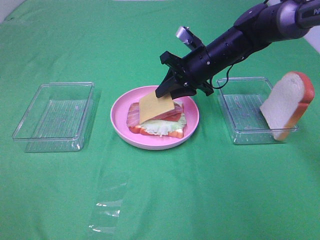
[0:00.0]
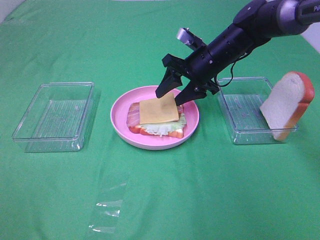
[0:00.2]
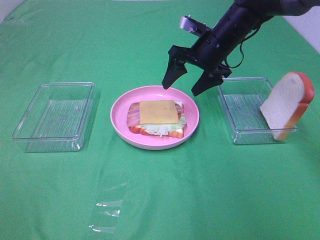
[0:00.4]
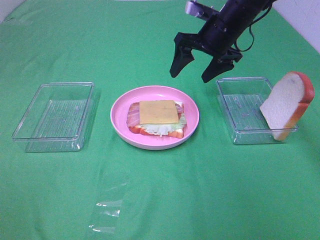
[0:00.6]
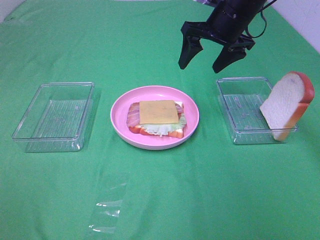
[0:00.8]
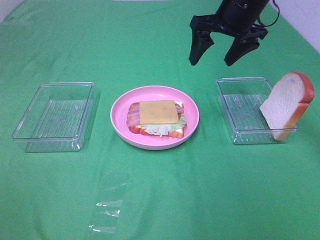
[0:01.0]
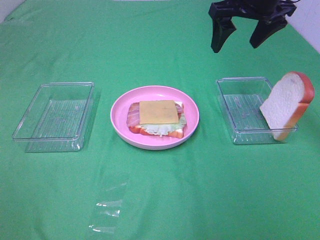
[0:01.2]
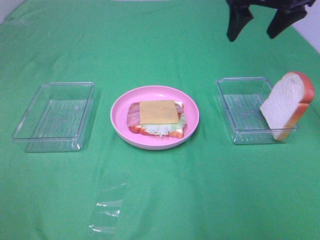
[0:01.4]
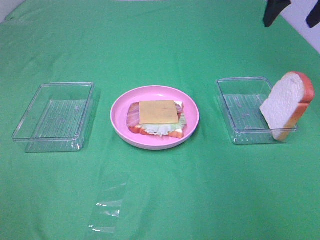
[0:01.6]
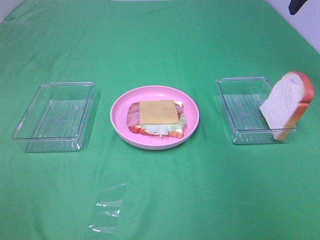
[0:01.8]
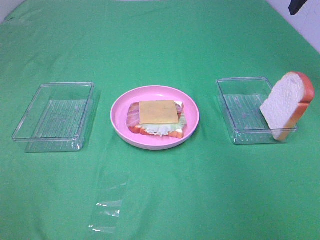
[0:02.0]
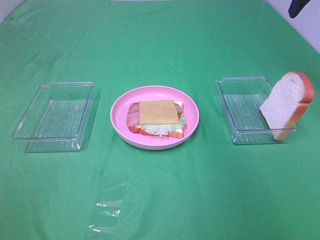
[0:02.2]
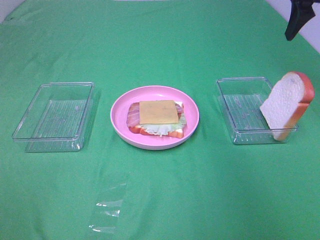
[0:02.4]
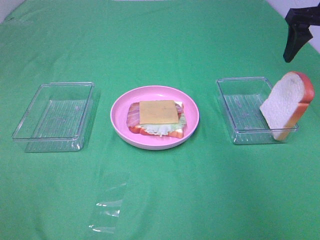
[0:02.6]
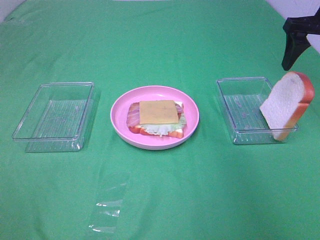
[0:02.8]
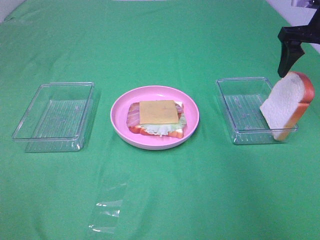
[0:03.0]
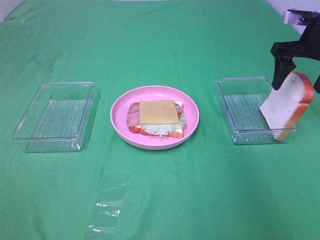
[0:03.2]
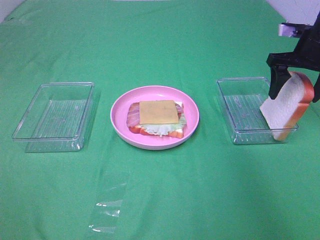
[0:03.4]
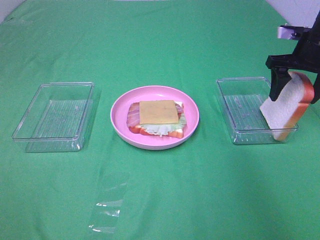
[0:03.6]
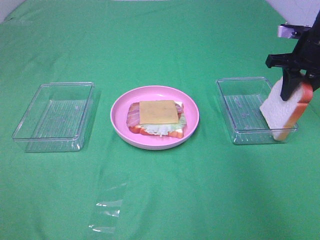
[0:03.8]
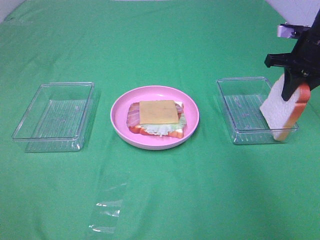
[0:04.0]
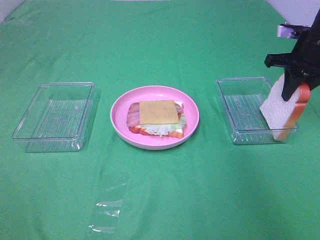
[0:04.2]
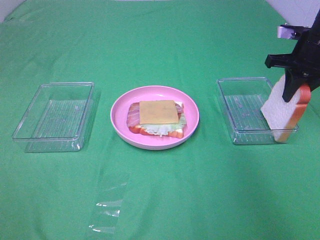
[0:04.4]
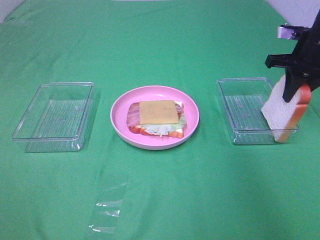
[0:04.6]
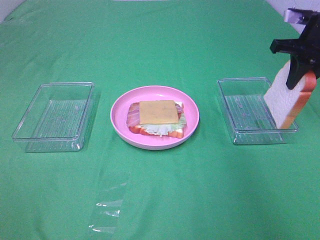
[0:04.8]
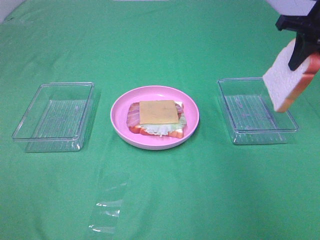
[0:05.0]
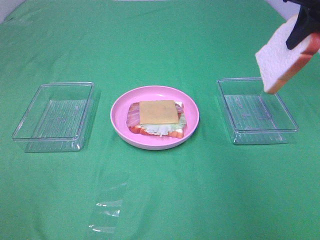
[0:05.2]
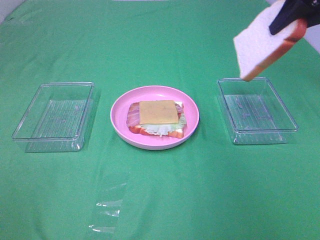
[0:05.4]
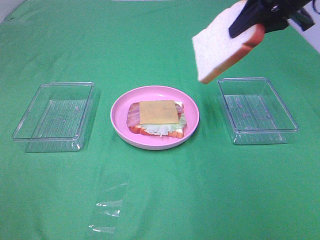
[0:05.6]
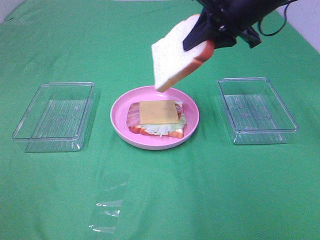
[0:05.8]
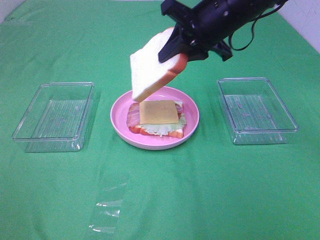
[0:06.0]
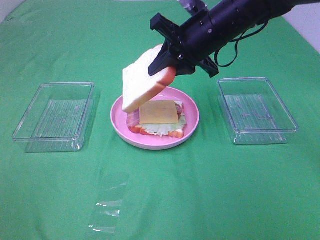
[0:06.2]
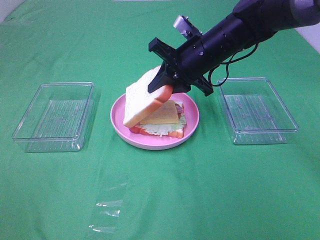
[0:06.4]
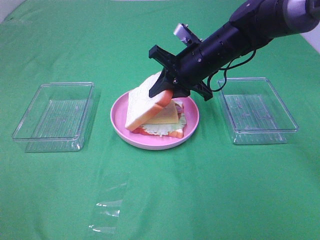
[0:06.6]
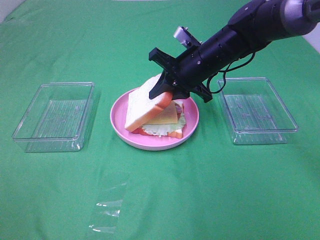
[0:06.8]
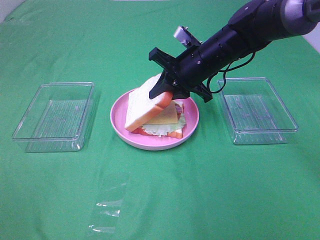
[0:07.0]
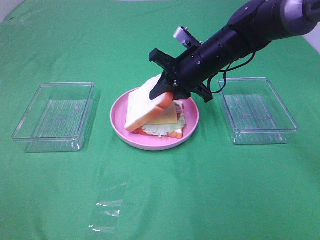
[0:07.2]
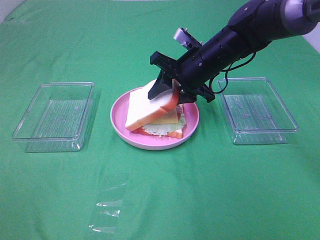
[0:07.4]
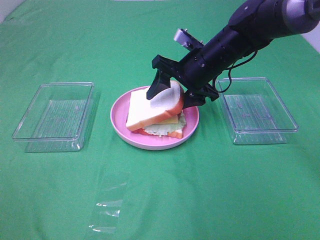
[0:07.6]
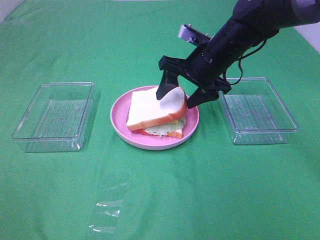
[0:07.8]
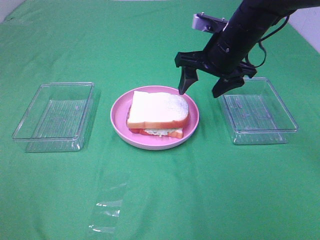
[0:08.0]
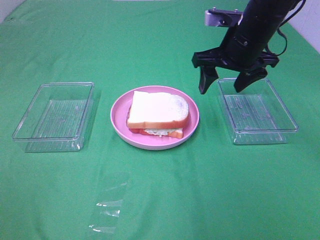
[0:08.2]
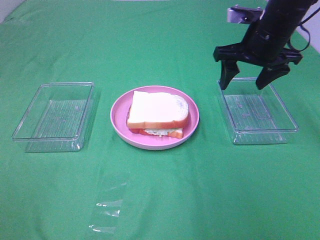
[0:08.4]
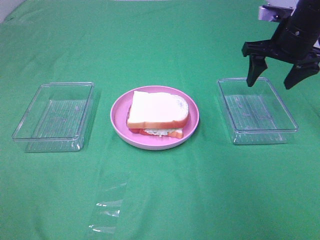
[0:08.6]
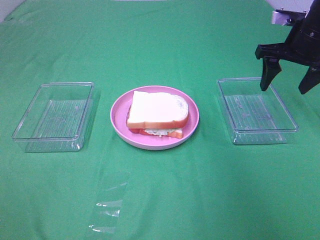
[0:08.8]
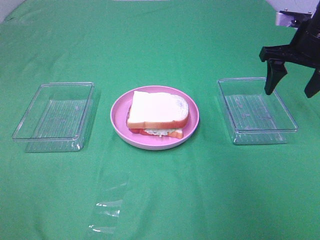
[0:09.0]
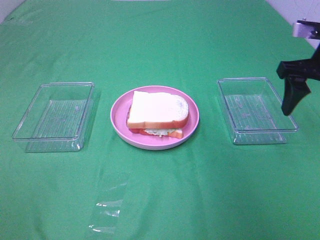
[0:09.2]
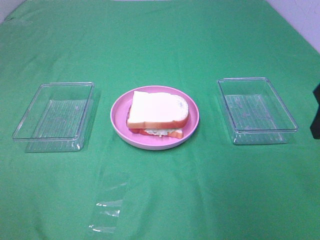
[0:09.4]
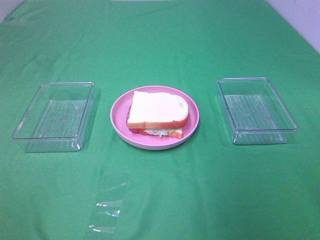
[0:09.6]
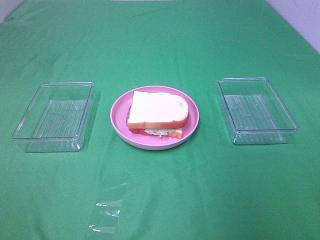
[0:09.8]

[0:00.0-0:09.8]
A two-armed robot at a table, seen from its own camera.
Task of the whole recording: Make sandwiches.
Step, 0:00.4 to 0:04.4: Right hand:grab the bread slice.
Step, 0:04.6 to 0:07.8: Right hand:place the bread slice on the cheese slice.
0:00.0 to 0:01.4: The right gripper travels upward and to the right by some 20 cm, and opens.
0:01.4 to 0:02.8: The right gripper moves to the right, about 10 cm.
0:02.8 to 0:04.2: The right gripper travels downward by some 10 cm, and closes its fingers.
0:04.2 to 0:05.6: The right gripper is displaced upward and to the left by some 15 cm.
0:05.6 to 0:07.0: The right gripper travels downward and to the left by some 20 cm.
0:07.0 to 0:08.4: The right gripper moves to the right and upward, about 10 cm, and opens up.
0:08.4 to 0:09.8: The right gripper goes some 30 cm backward.

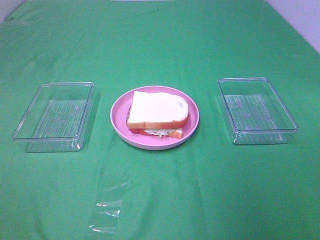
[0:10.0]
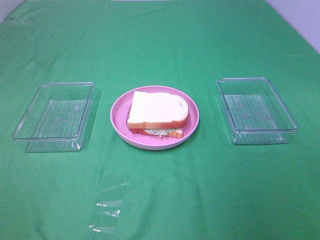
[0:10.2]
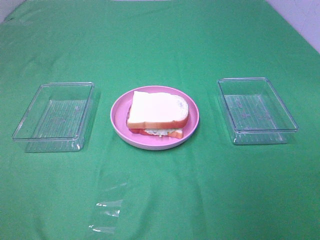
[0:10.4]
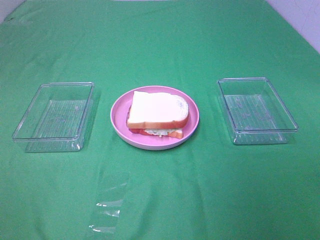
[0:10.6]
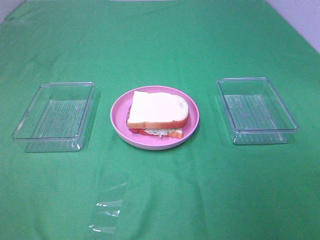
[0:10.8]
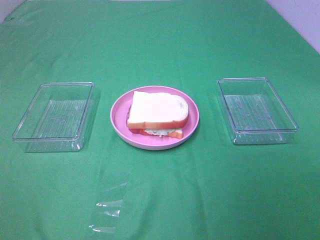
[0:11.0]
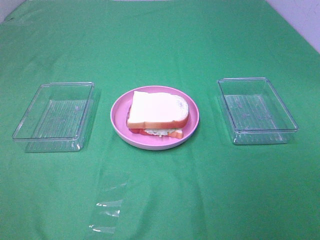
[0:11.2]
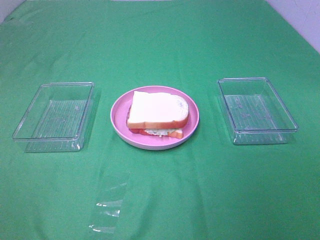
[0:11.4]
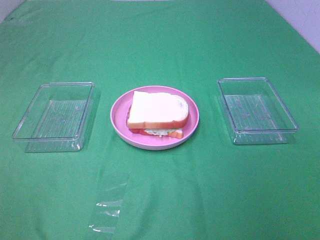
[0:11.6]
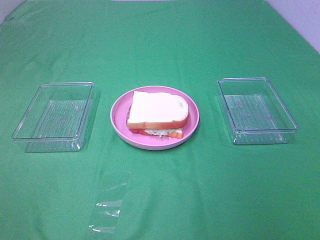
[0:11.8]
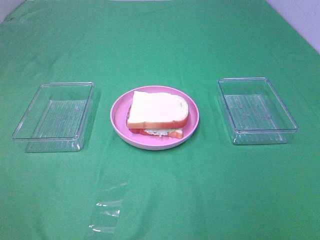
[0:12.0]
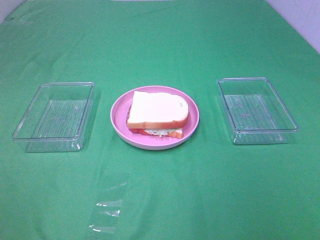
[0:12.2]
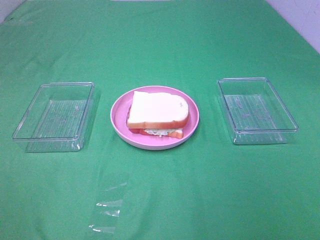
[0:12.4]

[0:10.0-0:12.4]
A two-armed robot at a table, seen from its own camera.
Task of the whole recording: Make sandwiches.
0:11.2 to 0:12.4: The two grippers keep their place.

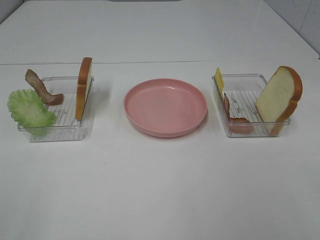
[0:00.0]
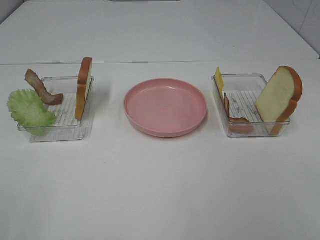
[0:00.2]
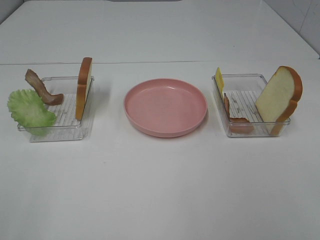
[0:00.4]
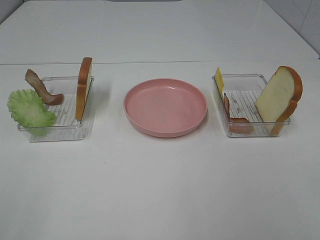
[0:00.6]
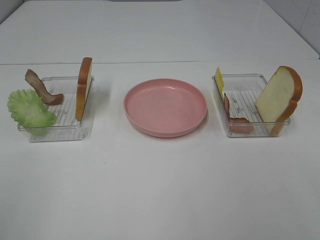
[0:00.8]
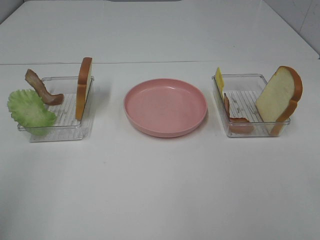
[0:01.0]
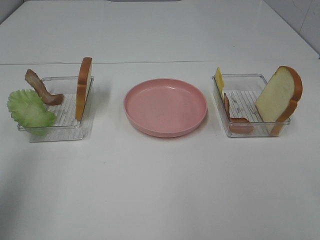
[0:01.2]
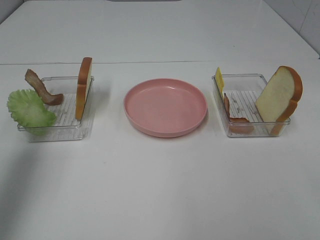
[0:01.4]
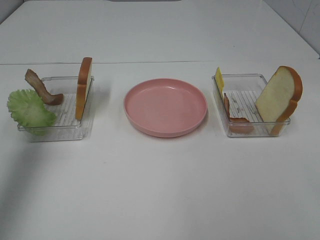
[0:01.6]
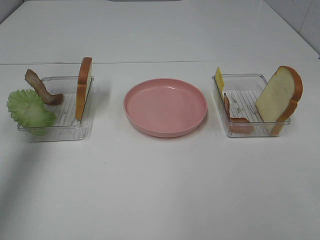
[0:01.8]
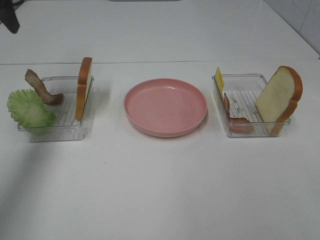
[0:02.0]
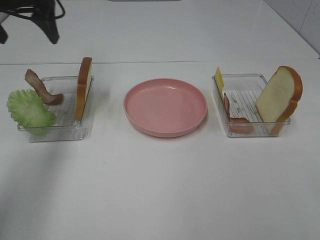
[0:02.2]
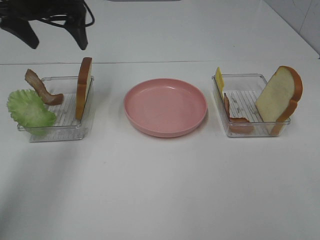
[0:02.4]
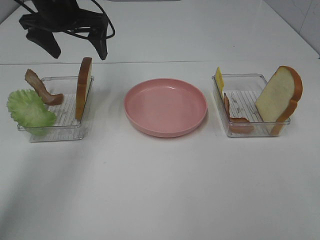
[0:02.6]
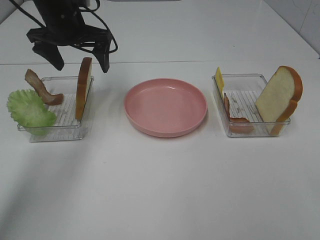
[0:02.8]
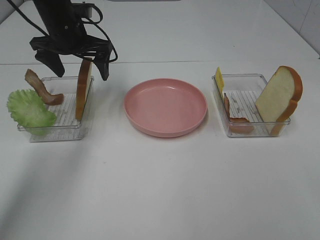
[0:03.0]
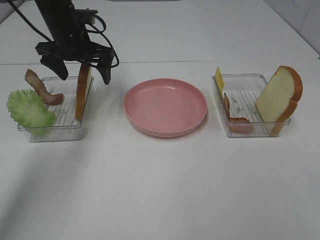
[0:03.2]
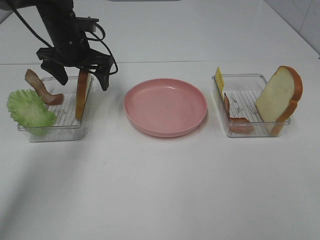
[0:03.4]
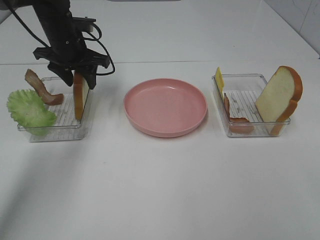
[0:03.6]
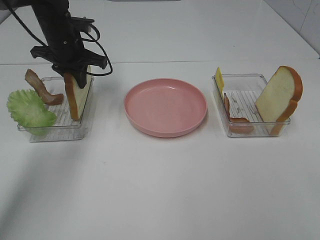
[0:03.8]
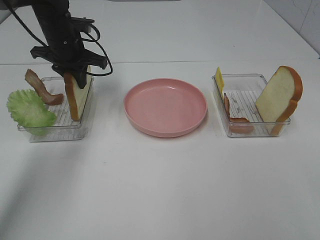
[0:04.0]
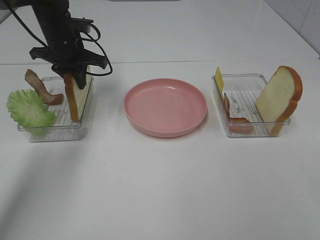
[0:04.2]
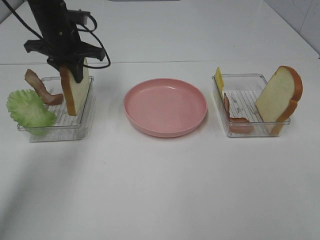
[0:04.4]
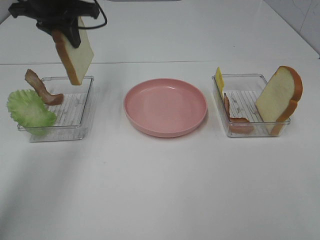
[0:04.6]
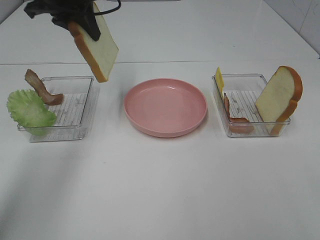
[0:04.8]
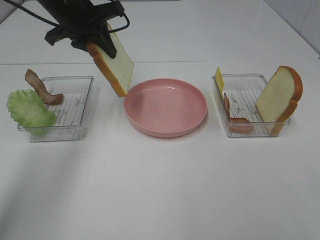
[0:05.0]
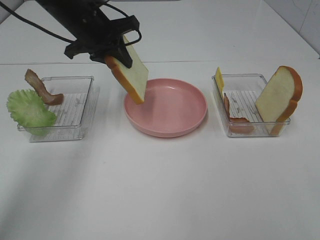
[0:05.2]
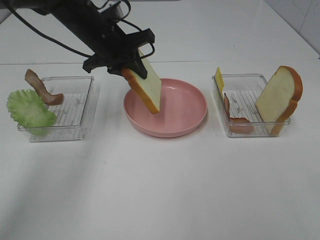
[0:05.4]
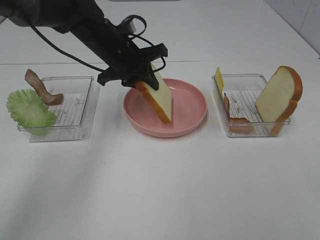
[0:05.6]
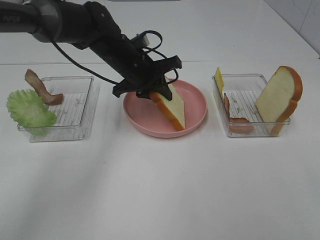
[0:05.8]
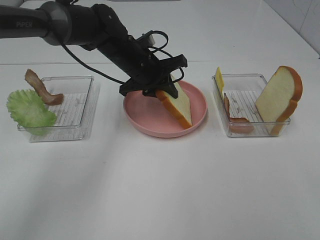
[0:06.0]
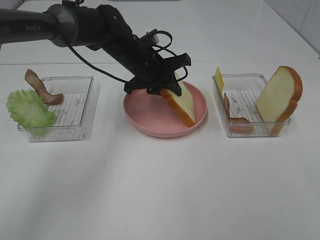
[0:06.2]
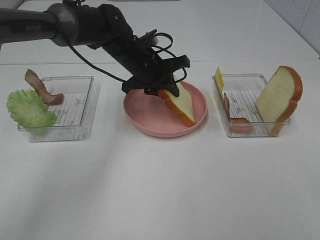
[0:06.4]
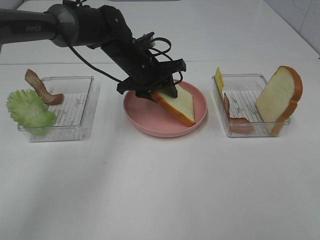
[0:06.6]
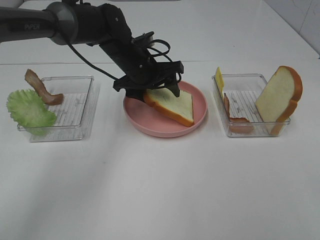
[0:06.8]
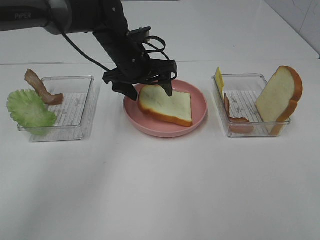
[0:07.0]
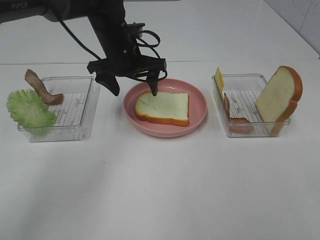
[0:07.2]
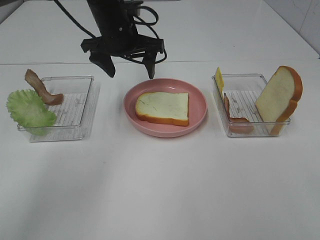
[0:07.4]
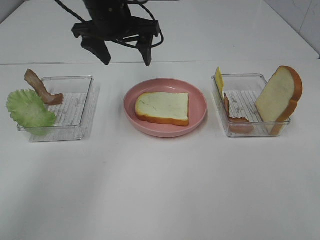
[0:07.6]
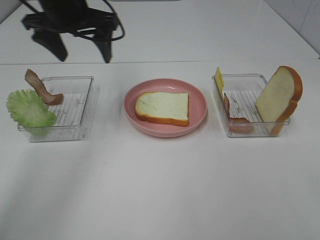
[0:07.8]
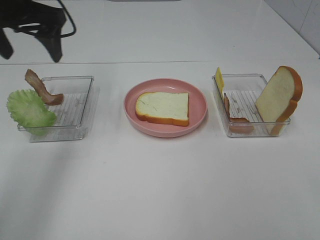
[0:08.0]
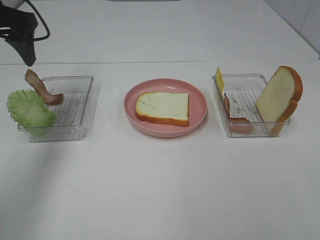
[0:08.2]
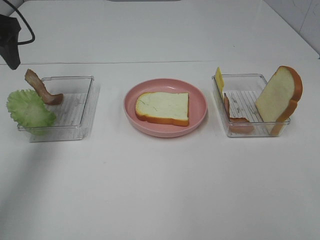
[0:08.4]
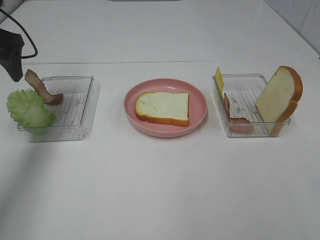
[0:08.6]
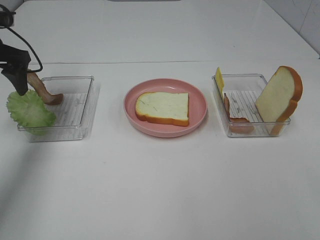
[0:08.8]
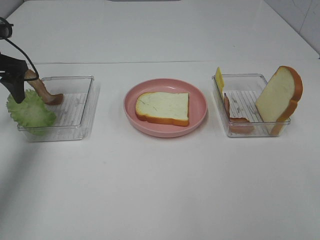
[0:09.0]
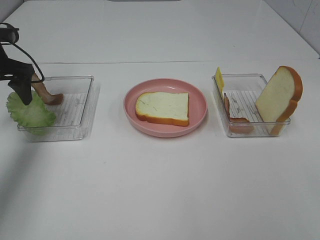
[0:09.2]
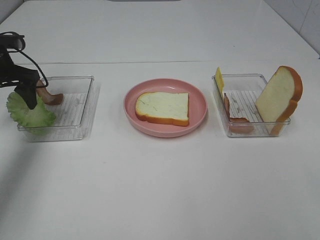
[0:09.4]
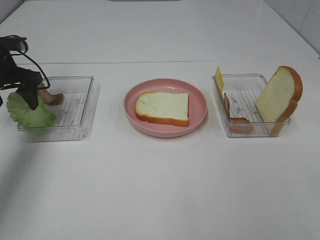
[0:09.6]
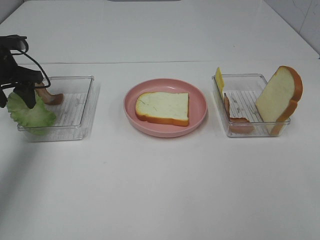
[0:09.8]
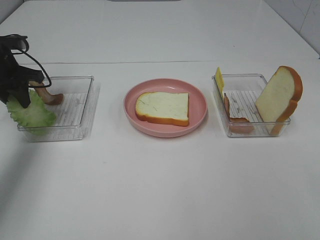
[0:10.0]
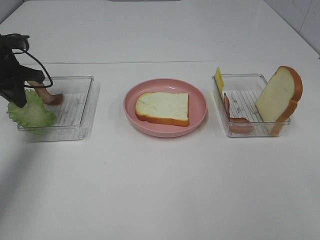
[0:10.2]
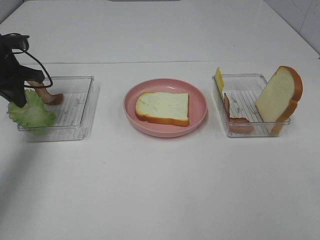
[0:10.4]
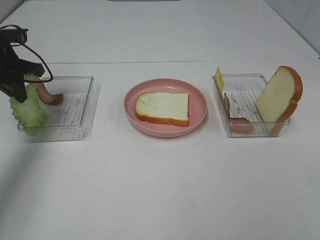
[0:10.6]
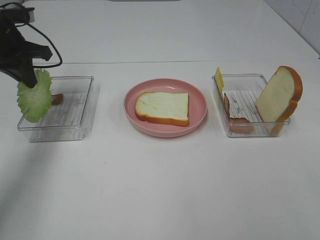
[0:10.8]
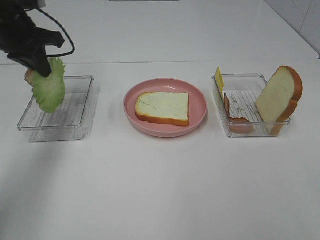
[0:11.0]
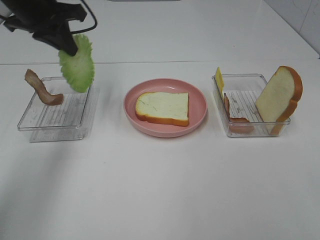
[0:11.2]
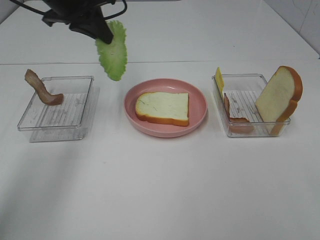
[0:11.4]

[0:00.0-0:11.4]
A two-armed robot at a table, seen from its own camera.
Task of the whole recording: Make sandwiches.
Step, 0:00.0 to 0:04.0: Left hand:grab the bread slice.
Step, 0:04.2 to 0:07.2: Left hand:place the bread slice on the plate.
Step, 0:07.4 to 0:10.6: Left hand:grab the lettuce slice.
0:00.0 to 0:01.4: The left gripper heads forward, covering roughly 25 cm.
0:01.4 to 0:02.8: The left gripper shifts some 30 cm forward, to the right and downward.
0:02.8 to 0:04.2: The left gripper is displaced downward by roughly 5 cm, and closes its fingers.
0:04.2 to 0:05.6: The left gripper is displaced to the right by roughly 10 cm, and reaches some 10 cm upward, then returns.
0:05.6 to 0:07.2: The left gripper opens.
0:07.2 to 0:08.6: The left gripper heads to the left, covering approximately 25 cm.
0:08.6 to 0:10.0: The left gripper travels downward by approximately 10 cm, and closes its fingers.
0:10.0 to 0:11.4: The left gripper travels to the right and upward by approximately 20 cm.
